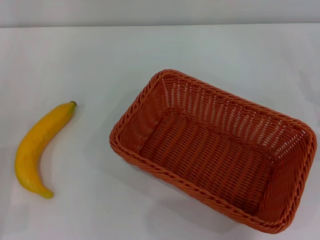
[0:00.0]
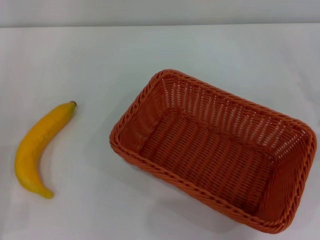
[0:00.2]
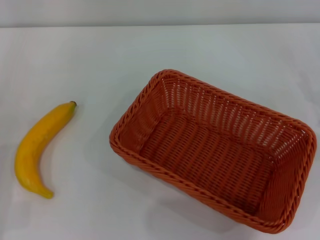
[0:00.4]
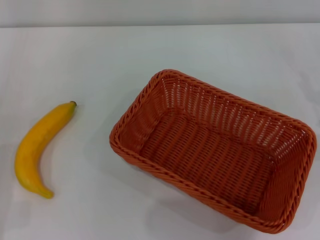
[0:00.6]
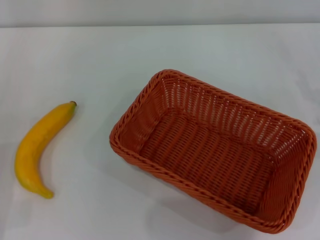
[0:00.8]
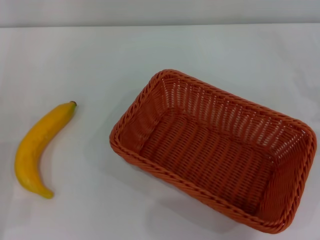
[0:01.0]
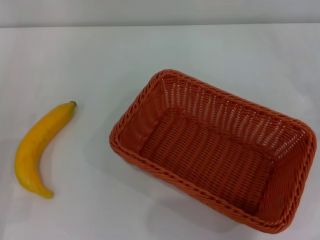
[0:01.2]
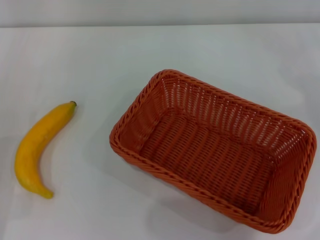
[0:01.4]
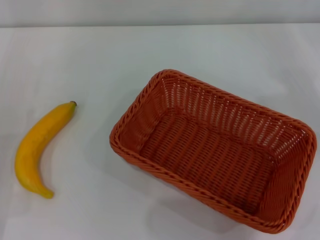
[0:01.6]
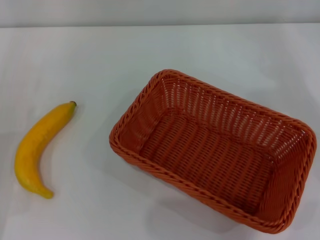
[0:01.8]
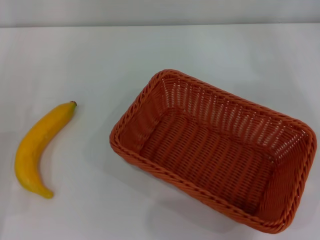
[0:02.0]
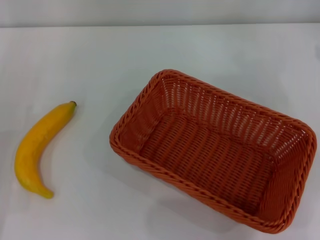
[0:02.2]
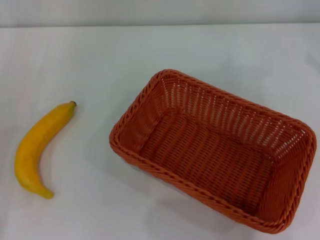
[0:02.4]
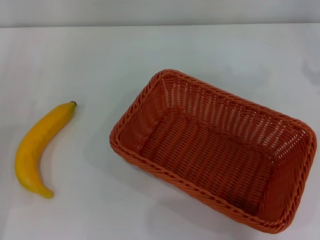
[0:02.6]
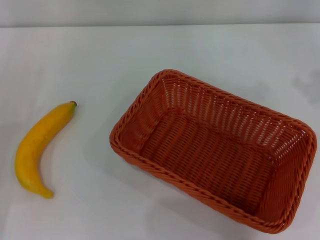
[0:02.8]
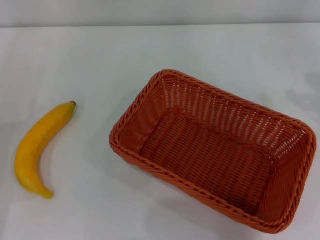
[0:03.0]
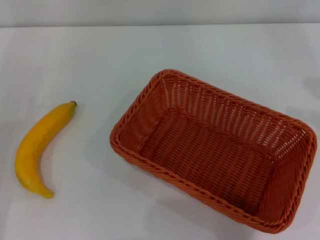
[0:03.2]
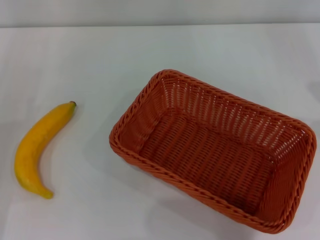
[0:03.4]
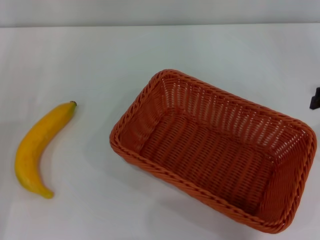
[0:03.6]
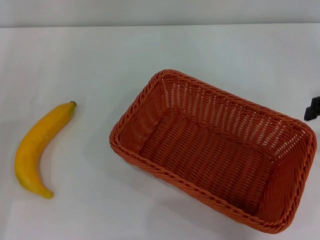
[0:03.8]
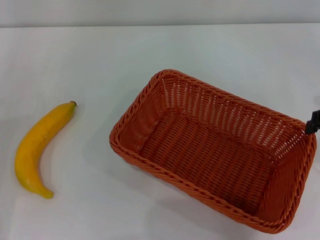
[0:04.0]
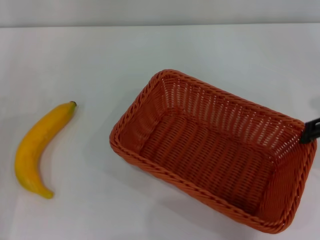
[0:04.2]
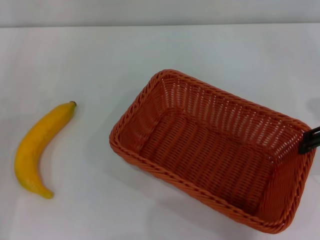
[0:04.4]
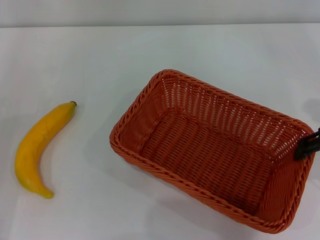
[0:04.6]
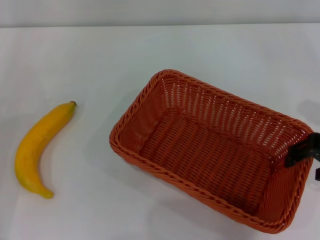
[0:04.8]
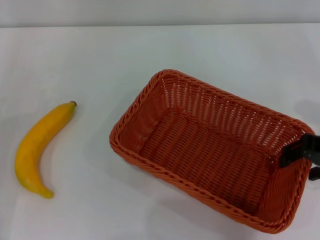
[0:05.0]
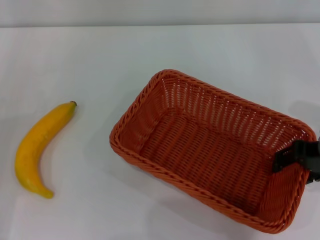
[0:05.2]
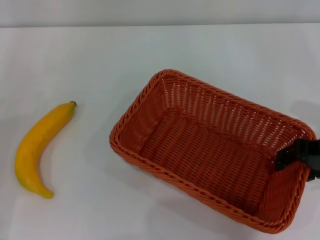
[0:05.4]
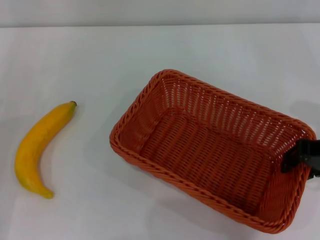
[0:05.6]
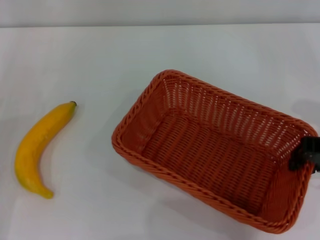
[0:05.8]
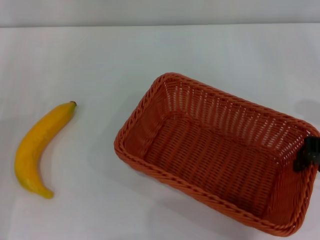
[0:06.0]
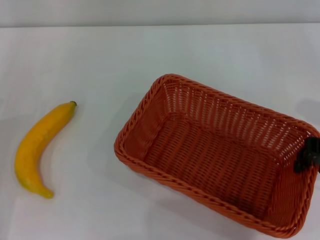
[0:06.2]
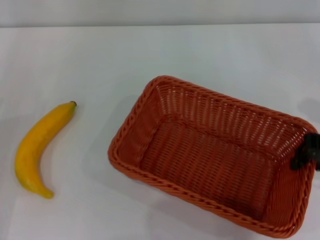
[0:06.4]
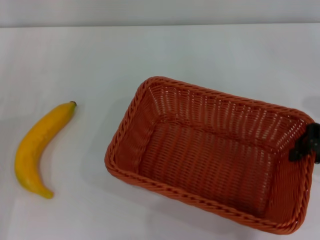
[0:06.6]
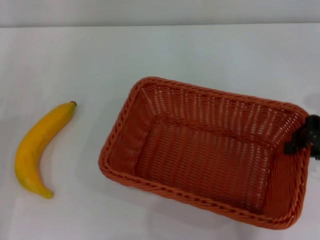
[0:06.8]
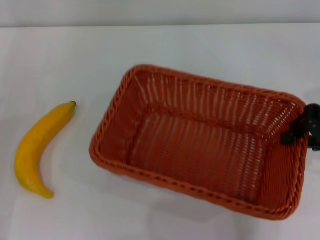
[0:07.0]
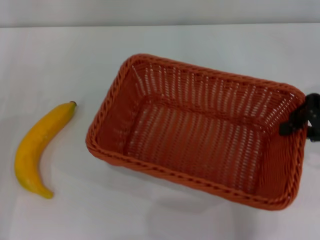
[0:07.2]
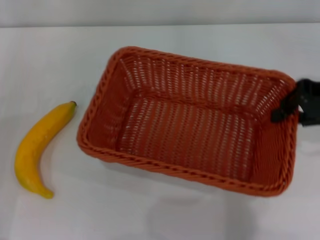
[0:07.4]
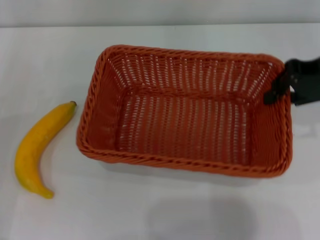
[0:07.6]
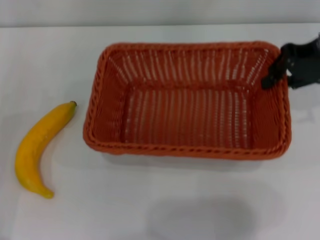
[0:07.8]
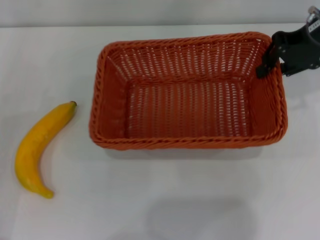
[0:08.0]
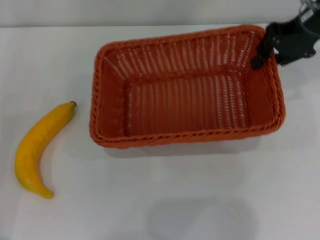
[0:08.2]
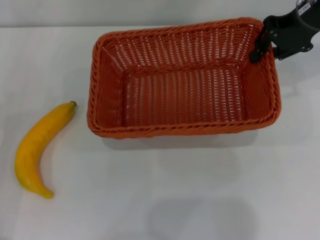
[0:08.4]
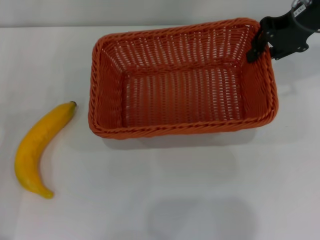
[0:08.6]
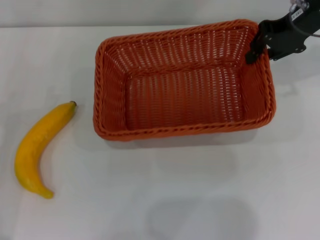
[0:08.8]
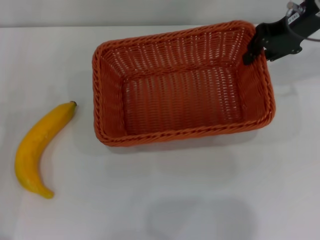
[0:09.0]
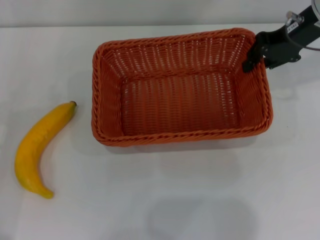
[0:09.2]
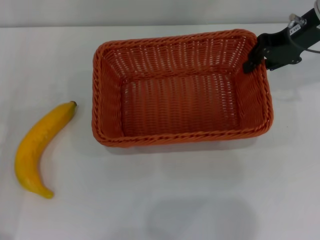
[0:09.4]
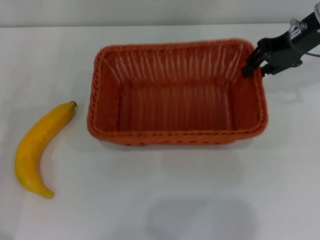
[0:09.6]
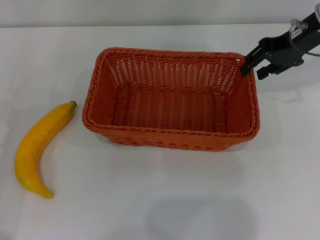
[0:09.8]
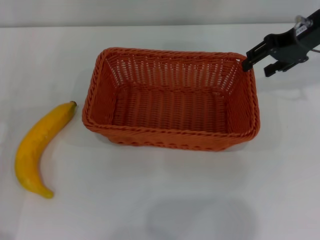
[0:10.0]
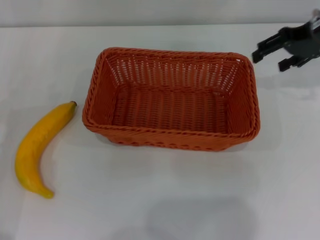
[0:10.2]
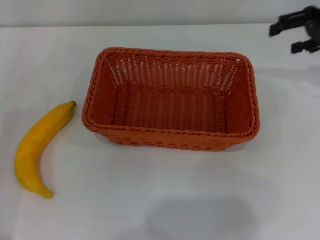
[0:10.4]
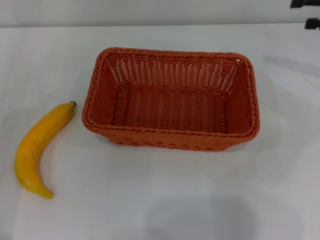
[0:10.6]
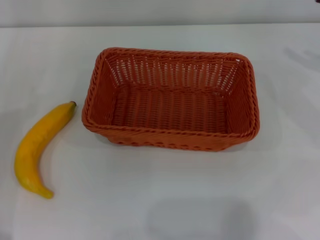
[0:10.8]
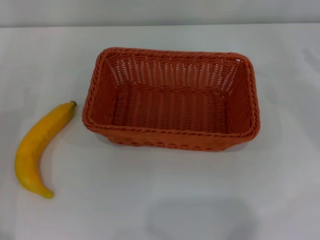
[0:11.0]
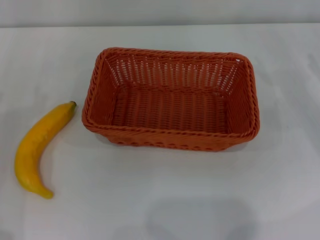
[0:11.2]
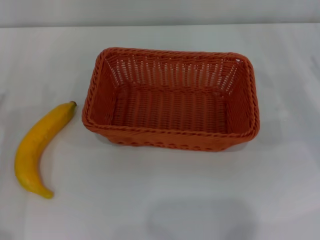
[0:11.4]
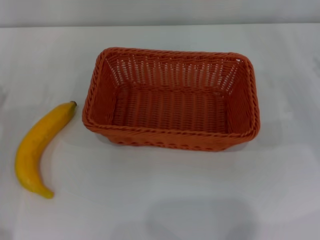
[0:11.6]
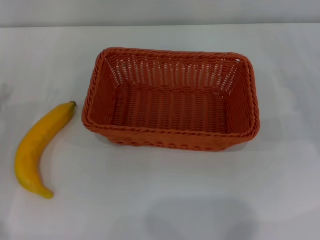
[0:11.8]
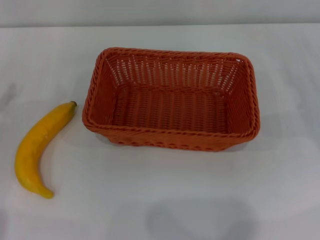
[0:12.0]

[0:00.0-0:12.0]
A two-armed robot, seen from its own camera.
Step, 0:00.0 to 0:07.0: Pick up the light basket with the right gripper.
Step, 0:07.2 to 0:10.0: Place the light basket in the center of view with the right gripper.
0:04.4 to 0:06.0: The right gripper closes up.
0:06.0 to 0:07.6: The right gripper is displaced forward and upward by approximately 10 cm.
0:07.6 to 0:09.0: The right gripper travels forward by approximately 10 cm.
0:09.0 to 0:10.4: The right gripper goes some 10 cm to the right, and opens up.
0:10.4 to 0:12.0: The right gripper travels downward and backward by about 20 cm.

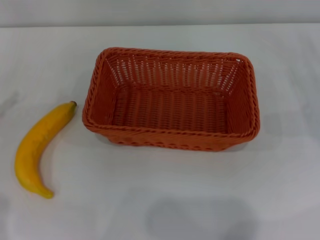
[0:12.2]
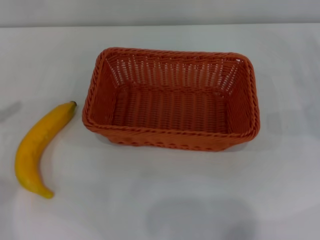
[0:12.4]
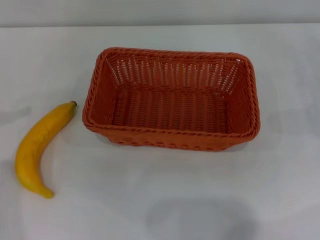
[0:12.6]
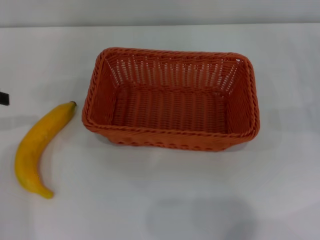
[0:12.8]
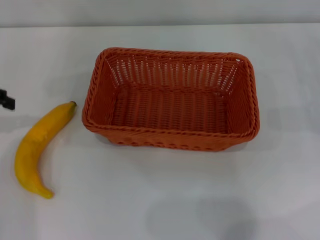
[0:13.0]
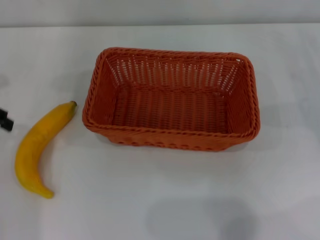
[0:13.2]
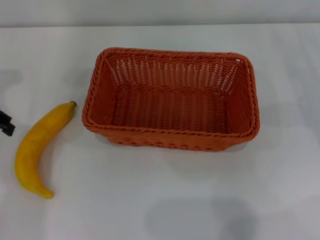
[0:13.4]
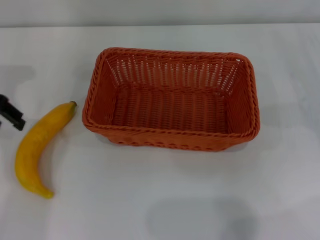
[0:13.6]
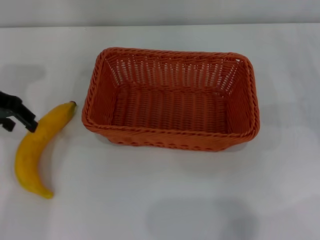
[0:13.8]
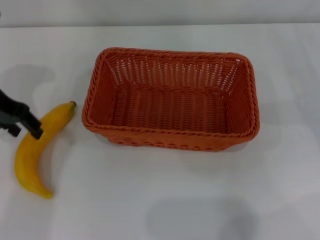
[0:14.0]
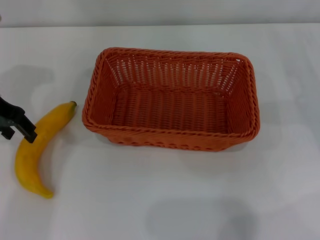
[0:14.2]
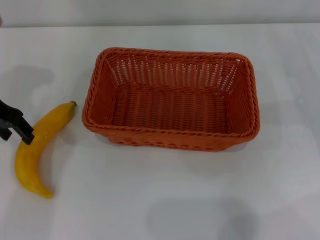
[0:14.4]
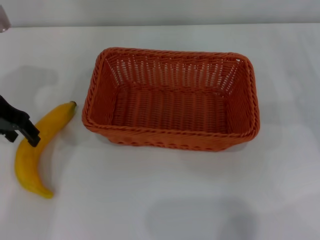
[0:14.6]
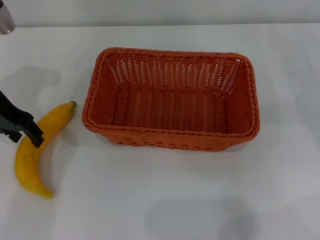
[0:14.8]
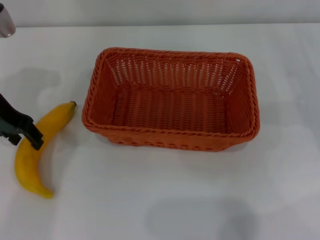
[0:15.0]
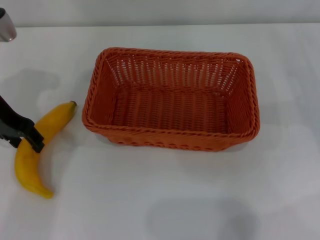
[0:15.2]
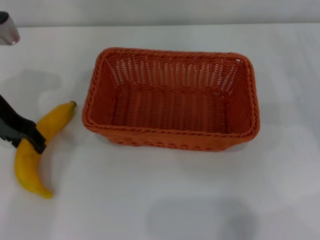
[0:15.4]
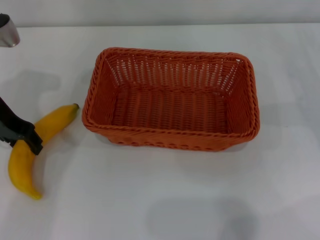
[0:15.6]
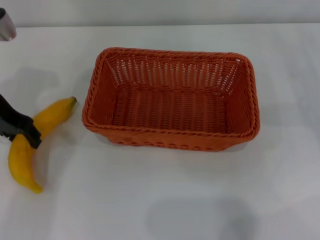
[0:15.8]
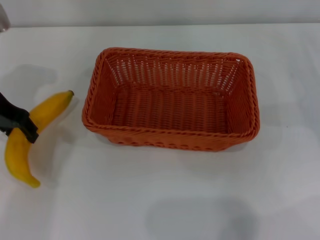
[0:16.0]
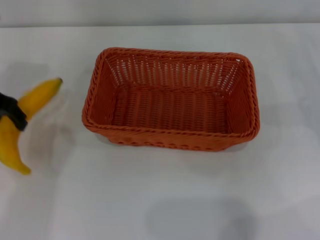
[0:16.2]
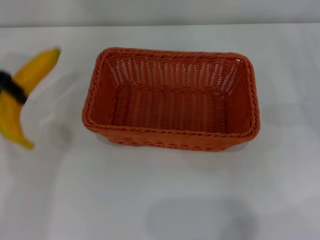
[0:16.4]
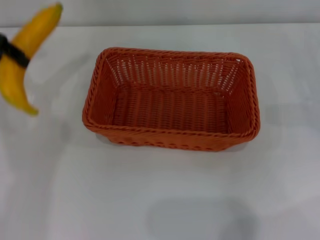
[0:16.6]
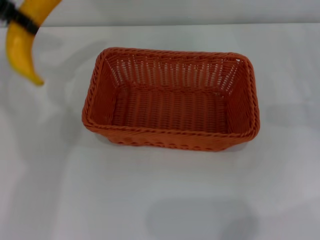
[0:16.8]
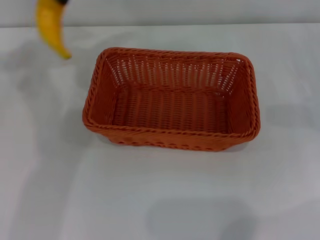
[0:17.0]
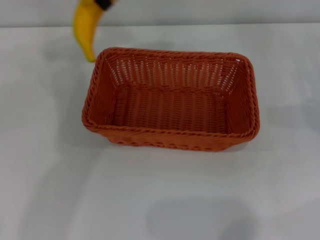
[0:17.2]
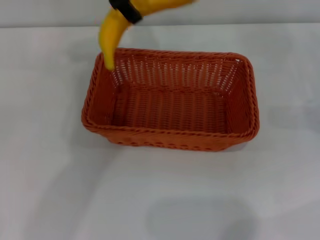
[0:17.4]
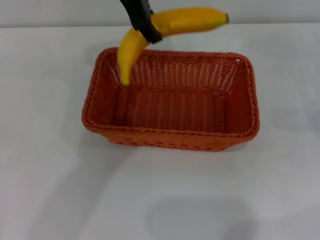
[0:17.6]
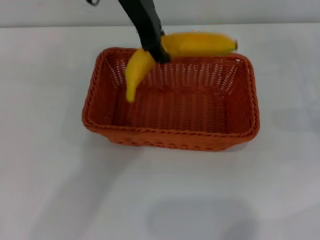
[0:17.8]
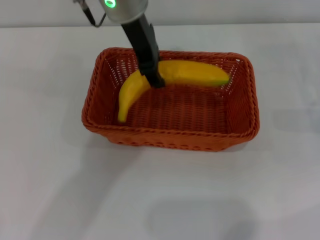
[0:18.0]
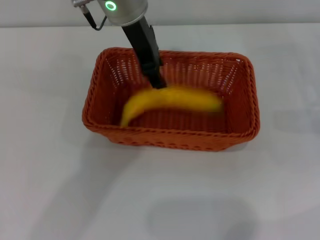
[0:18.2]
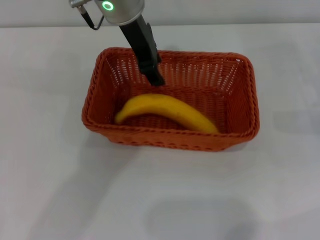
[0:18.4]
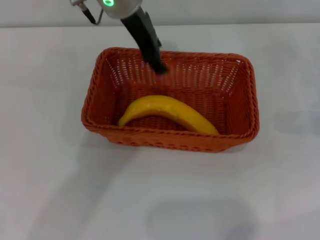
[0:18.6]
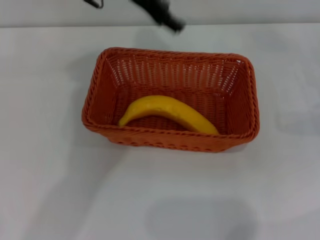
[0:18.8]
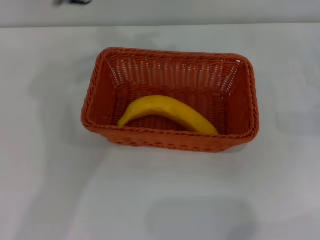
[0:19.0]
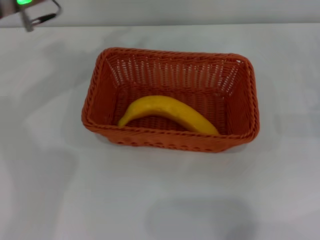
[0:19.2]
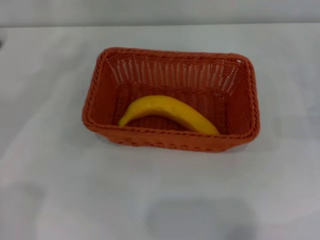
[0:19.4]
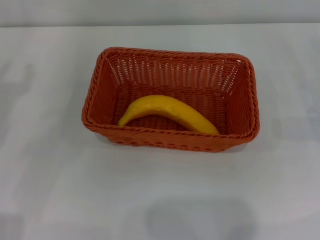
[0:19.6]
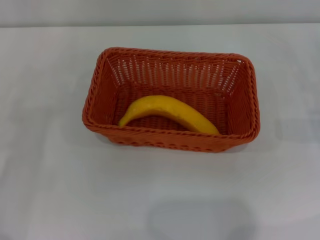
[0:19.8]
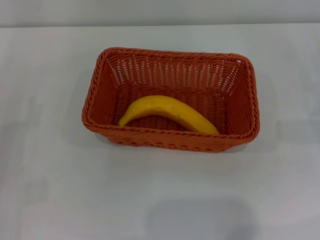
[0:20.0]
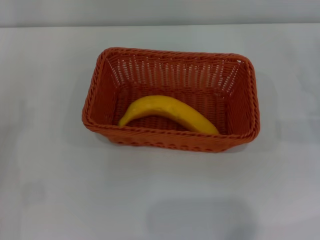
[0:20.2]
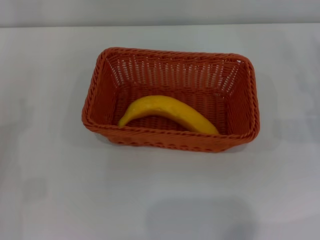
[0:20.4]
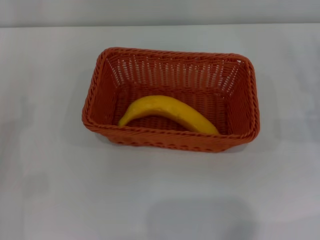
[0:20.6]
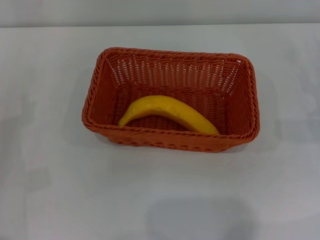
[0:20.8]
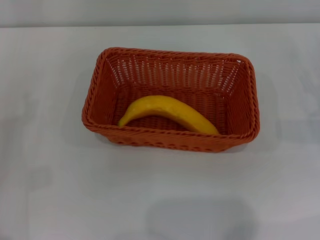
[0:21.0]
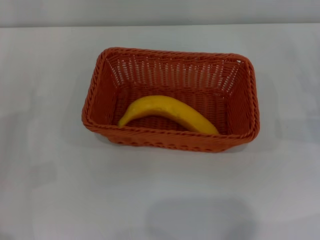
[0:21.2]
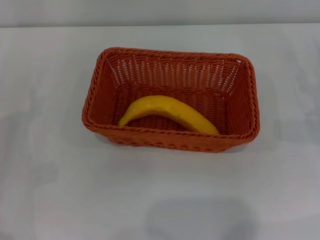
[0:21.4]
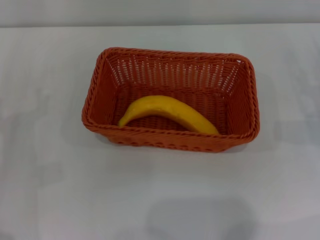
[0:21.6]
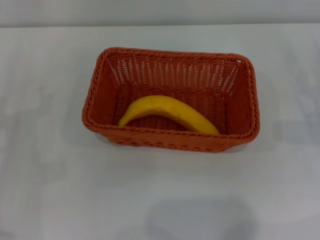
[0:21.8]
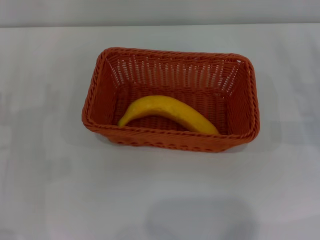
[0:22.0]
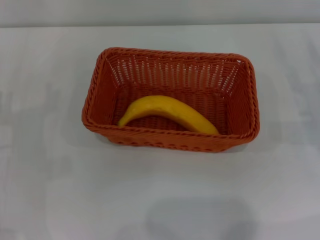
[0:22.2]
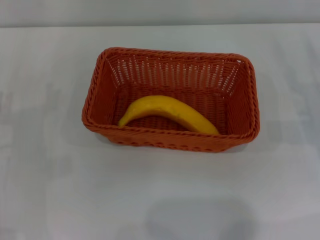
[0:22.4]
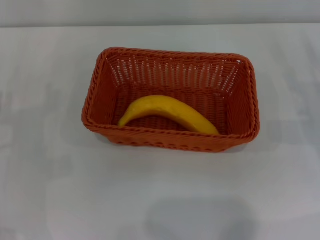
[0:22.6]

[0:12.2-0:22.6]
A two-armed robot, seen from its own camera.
Step, 0:12.2 to 0:16.2: Pick up the banana with the left gripper.
Step, 0:16.6 to 0:18.6: Place the banana into the light basket with the left gripper.
0:12.2 to 0:13.6: The left gripper moves forward, to the right and upward, approximately 15 cm.
0:13.6 to 0:15.2: The left gripper moves some 5 cm.
0:15.2 to 0:16.6: The left gripper is displaced upward by about 10 cm.
0:16.6 to 0:18.2: The left gripper goes roughly 25 cm to the right.
0:18.2 to 0:19.6: The left gripper is displaced to the left, downward and backward by about 35 cm, and opens up.
